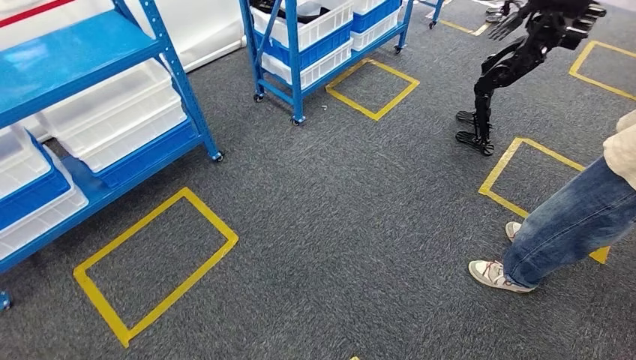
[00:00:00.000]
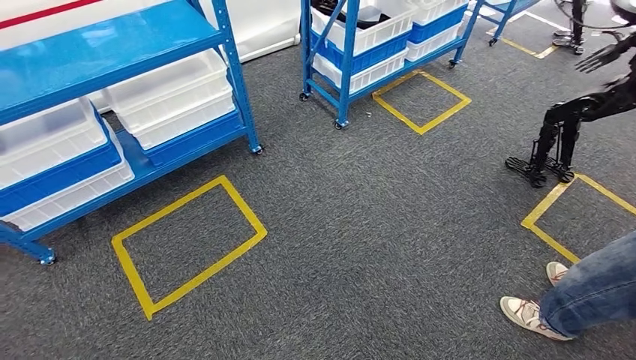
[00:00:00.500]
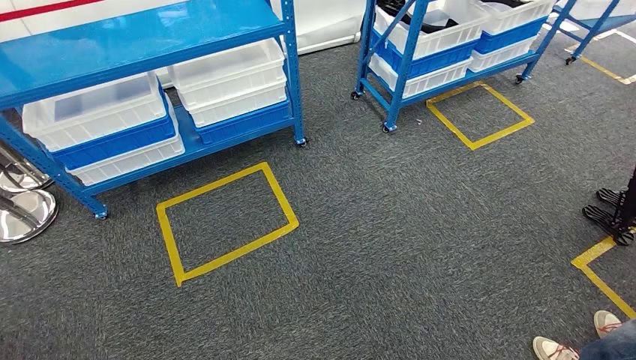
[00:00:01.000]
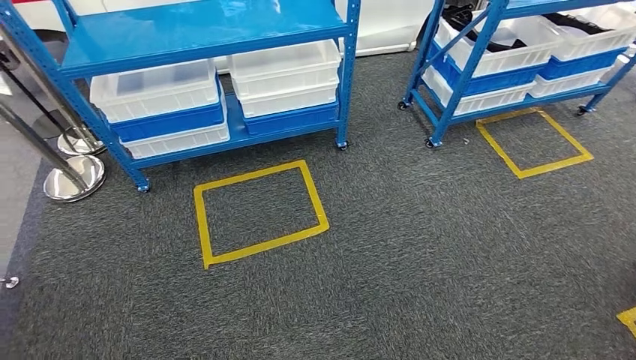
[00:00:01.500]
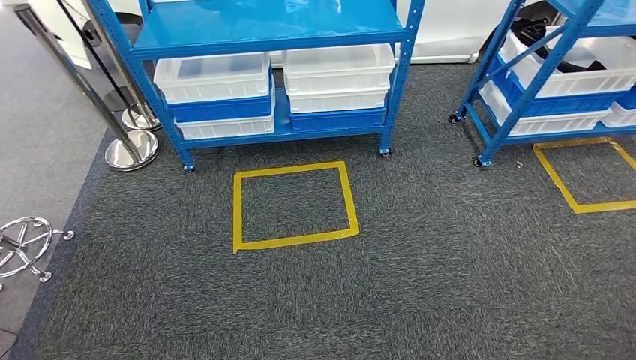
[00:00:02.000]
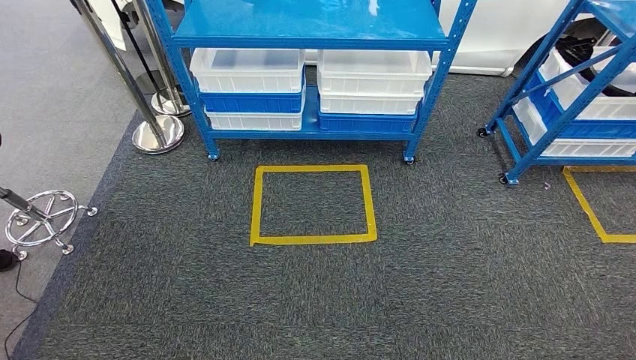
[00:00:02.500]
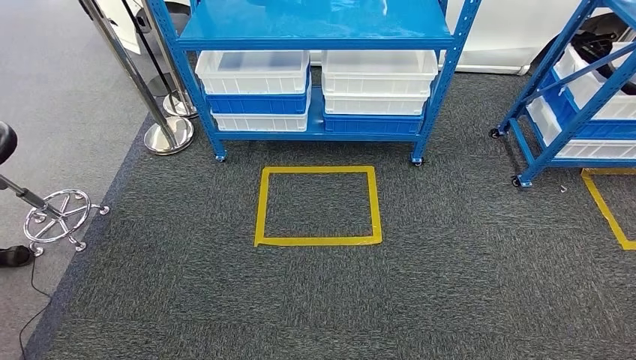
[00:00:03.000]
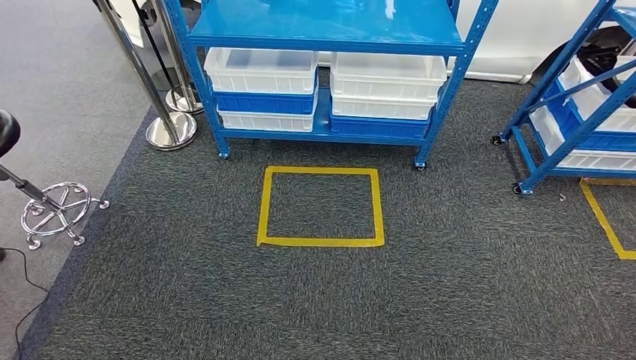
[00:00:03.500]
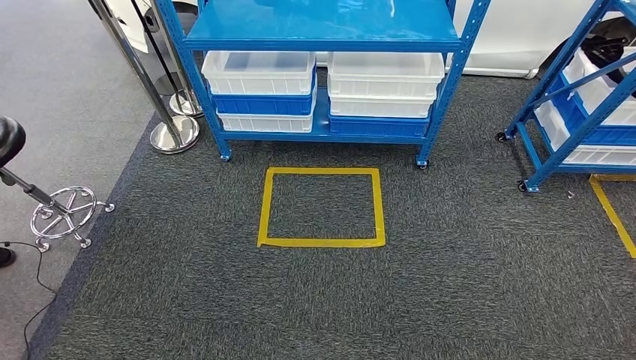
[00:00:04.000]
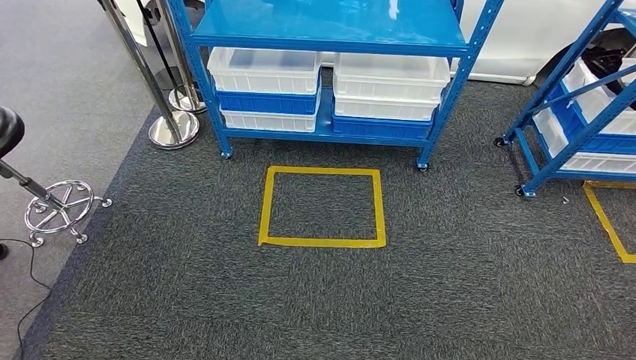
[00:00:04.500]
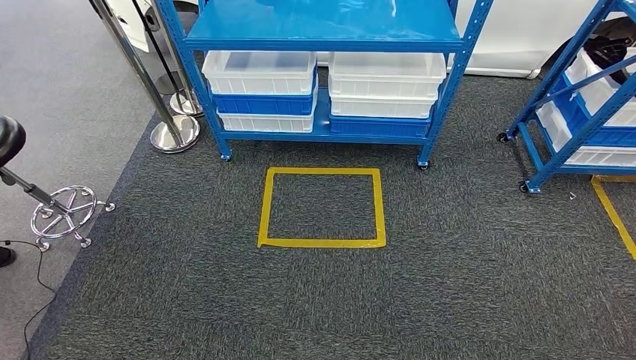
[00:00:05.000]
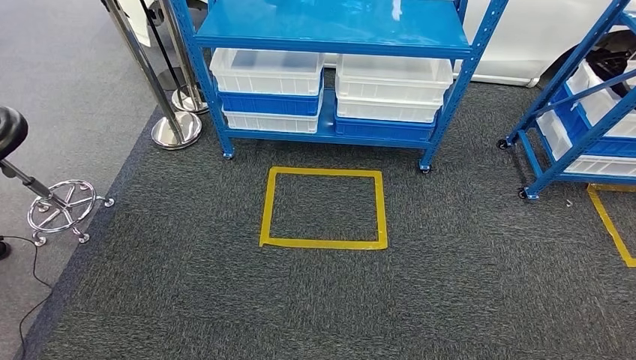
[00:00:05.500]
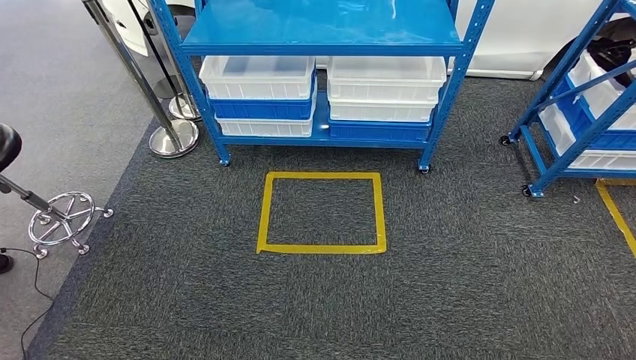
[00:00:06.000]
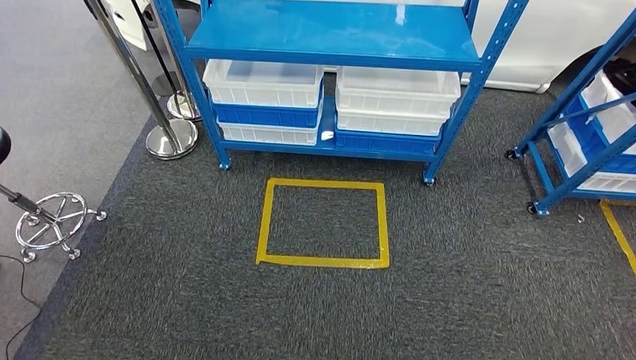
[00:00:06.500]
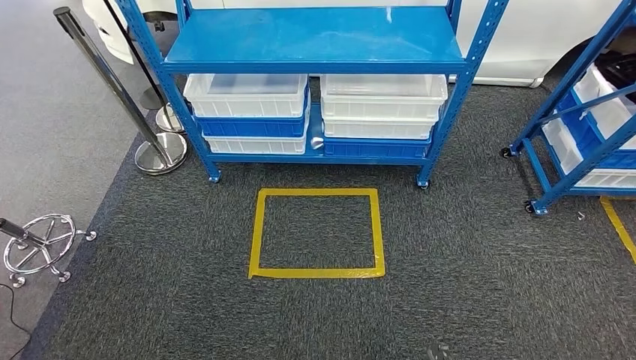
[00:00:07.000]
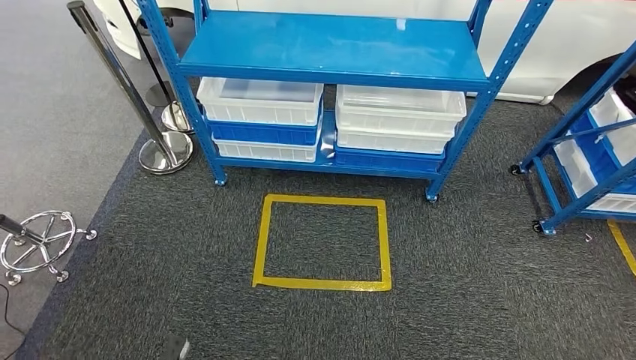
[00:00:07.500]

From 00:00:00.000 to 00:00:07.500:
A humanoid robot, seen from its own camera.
Step, from 00:00:00.000 to 00:00:07.500: Move to the initial position of the shelf.
From 00:00:04.000 to 00:00:05.500: The hands stay close to where they were, moving slightly.
